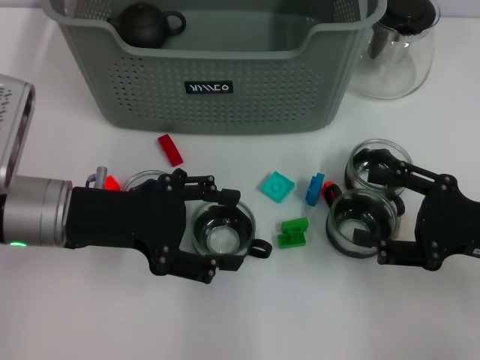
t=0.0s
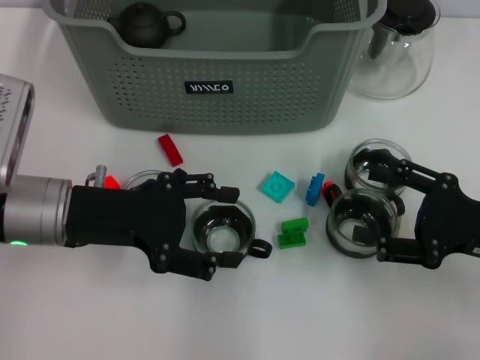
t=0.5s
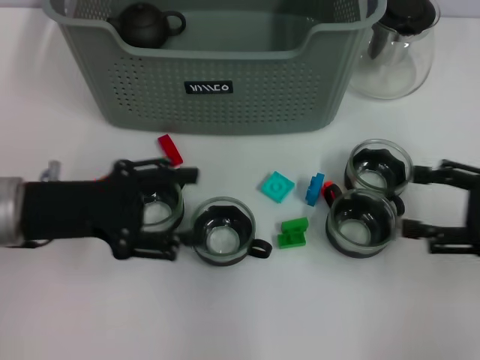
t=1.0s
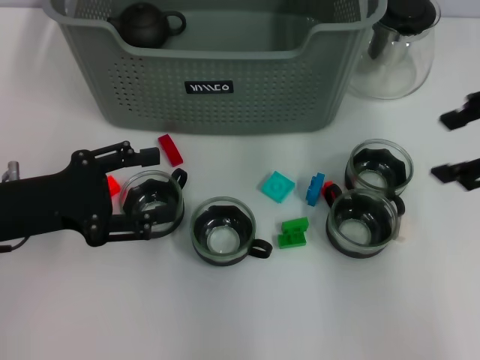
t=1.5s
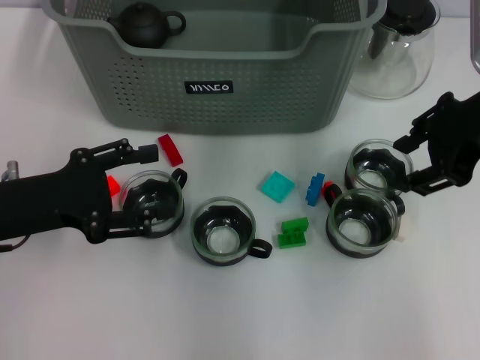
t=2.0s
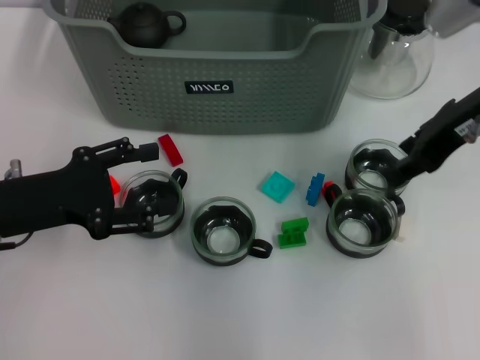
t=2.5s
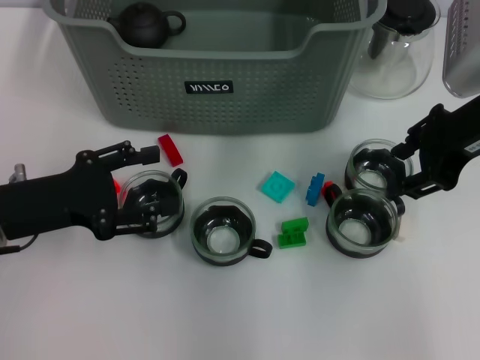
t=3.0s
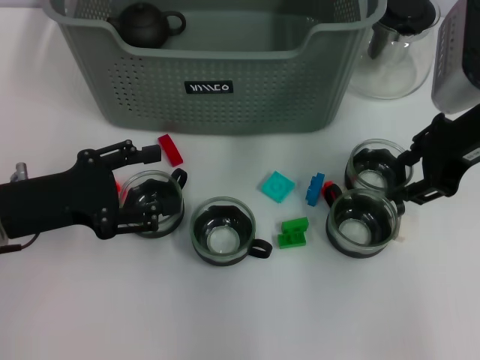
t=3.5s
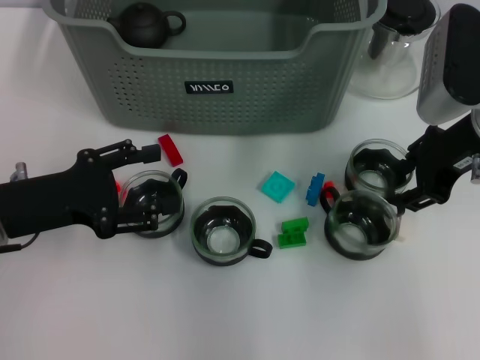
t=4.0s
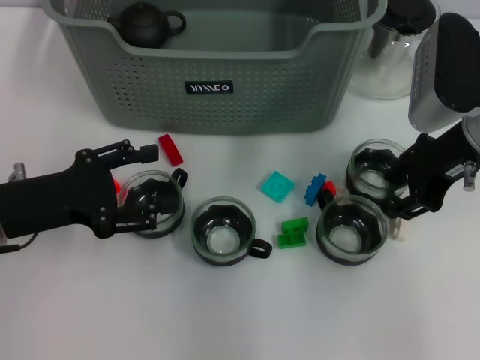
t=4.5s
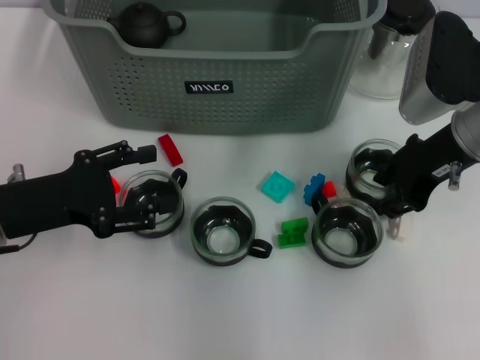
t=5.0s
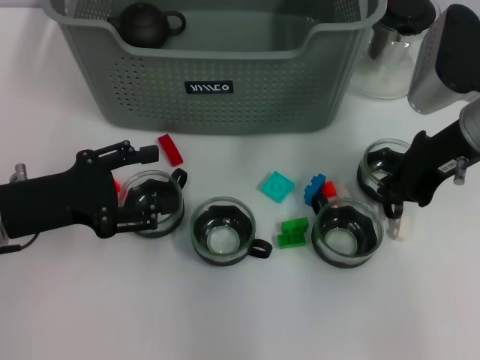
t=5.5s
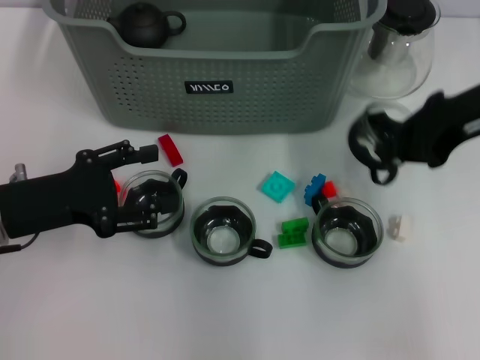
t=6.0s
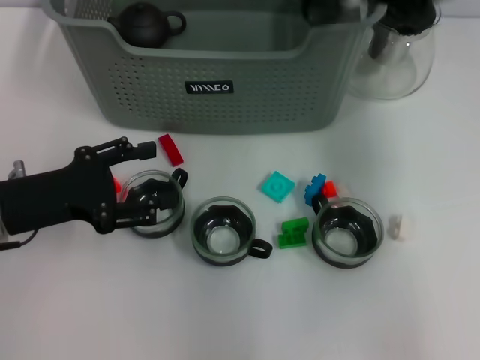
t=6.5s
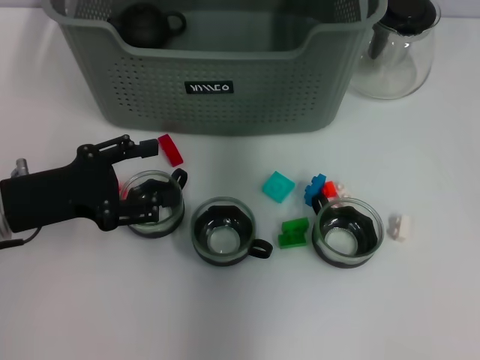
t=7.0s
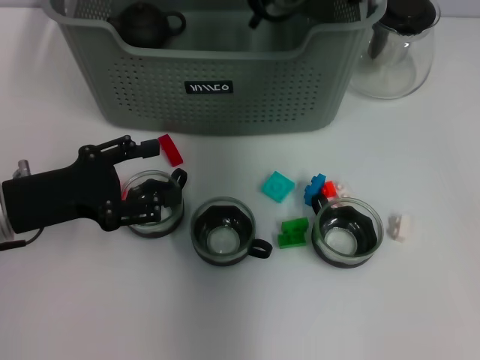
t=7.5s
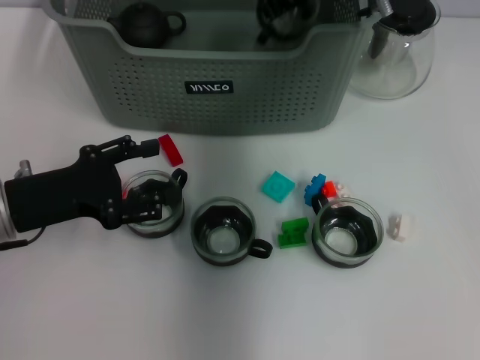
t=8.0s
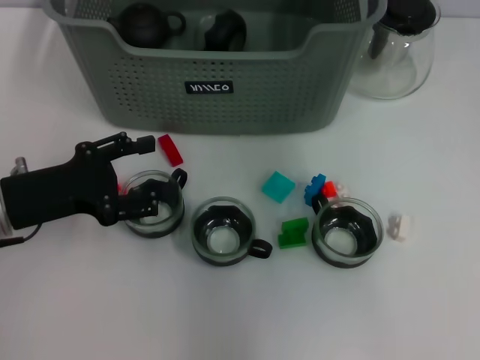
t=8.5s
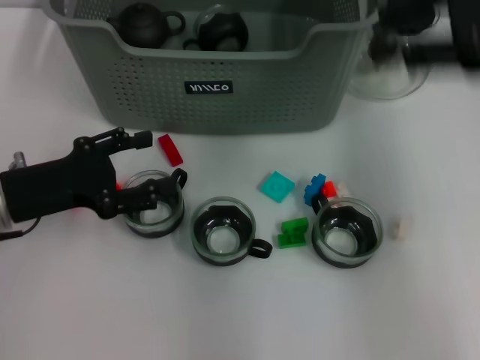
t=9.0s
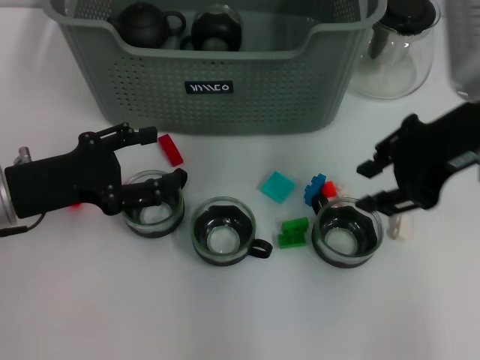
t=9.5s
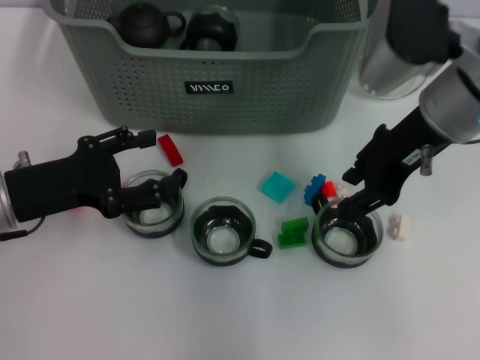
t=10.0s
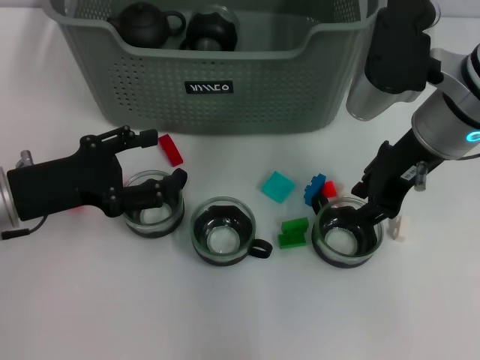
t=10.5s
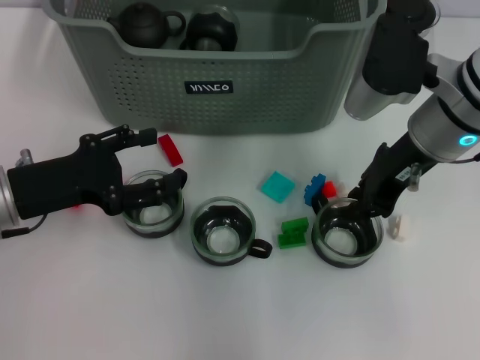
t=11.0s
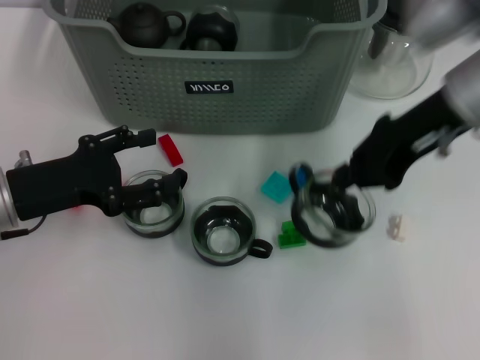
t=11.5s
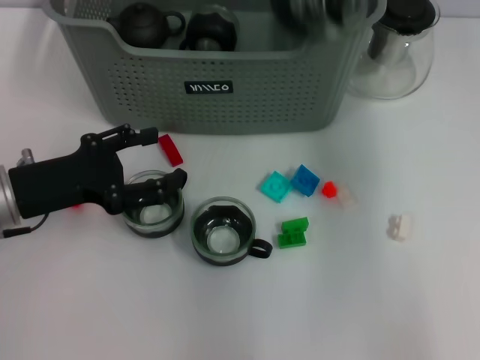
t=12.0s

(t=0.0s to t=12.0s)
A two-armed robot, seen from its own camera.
Task of the whole recording: pick up the teacup on the table and place it into the storage bin, pick up the block on the table and place it into the storage bin.
Step, t=0.0s - t=5.5s: Grasp the cup with right gripper.
Step, t=6.0s - t=8.0s: Place the cup in the storage box with right gripper.
Step, t=8.5s - t=11.0s: Grasp the cup with right gripper.
t=0.0s - t=2.0s: The left gripper is displaced to the left by about 5 cm; the right gripper goes approximately 20 cm upward, forward and to the left.
t=2.0s - t=4.0s: The right gripper goes about 5 cm downward.
t=4.0s - t=6.0s: The right gripper closes up.
t=6.0s - t=8.0s: The right gripper is displaced to the left and forward by some 20 cm.
t=8.0s - t=10.0s: The right gripper moves backward and to the right, about 15 cm, and opens its fingers.
t=10.0s - t=12.0s: The right gripper is displaced upward and to the right by about 10 cm, and closes.

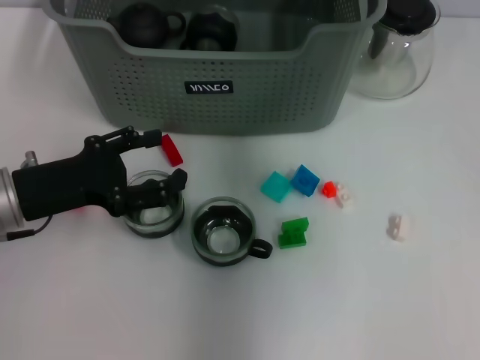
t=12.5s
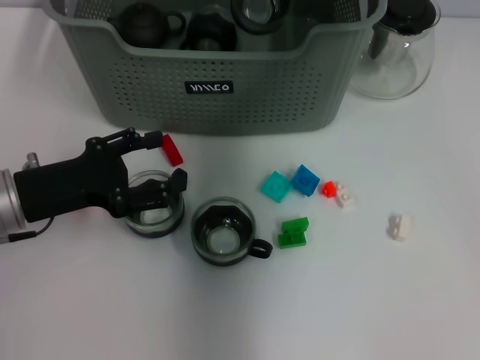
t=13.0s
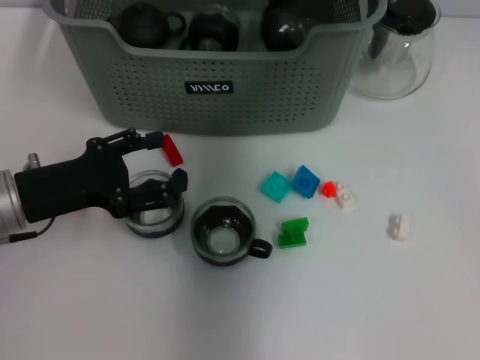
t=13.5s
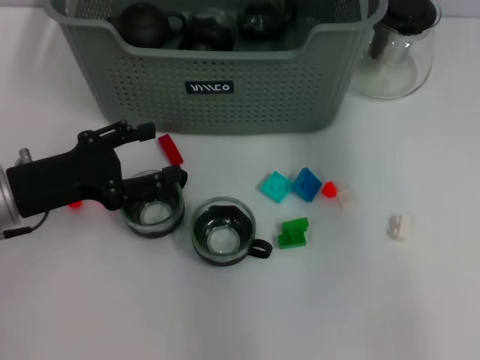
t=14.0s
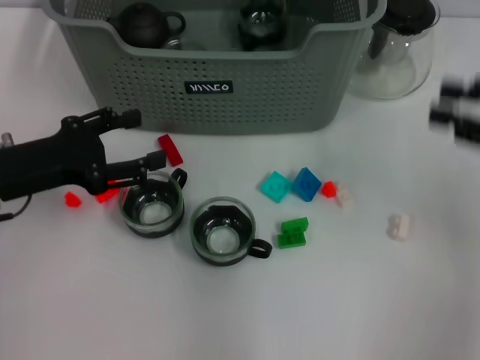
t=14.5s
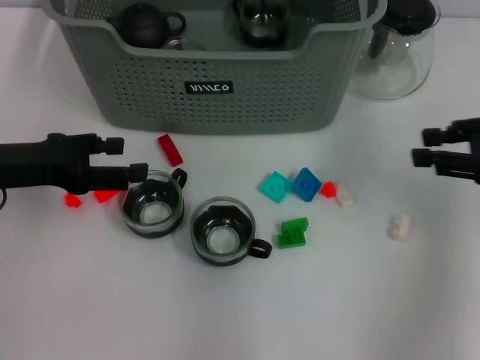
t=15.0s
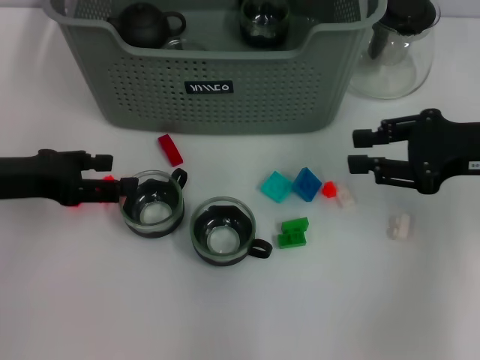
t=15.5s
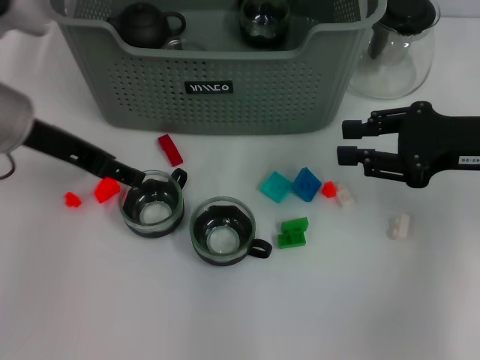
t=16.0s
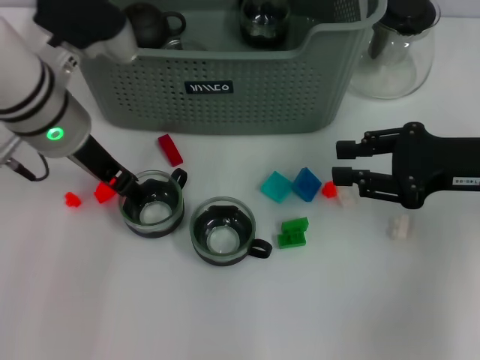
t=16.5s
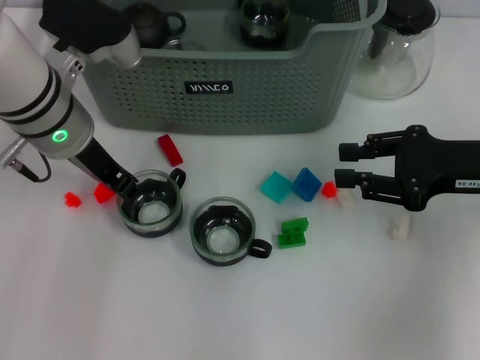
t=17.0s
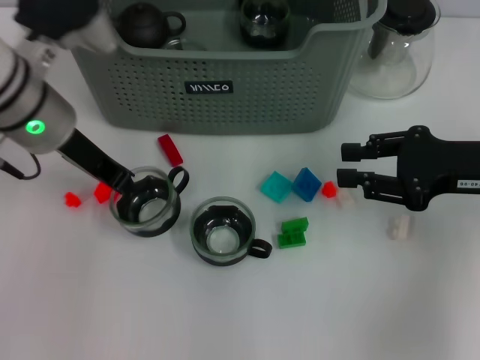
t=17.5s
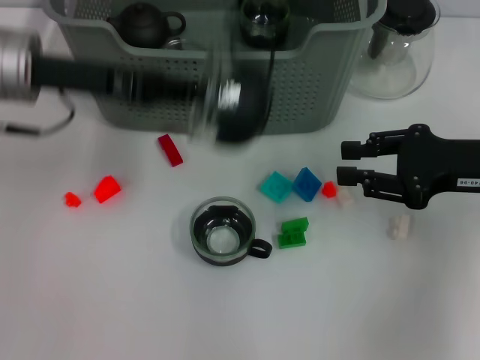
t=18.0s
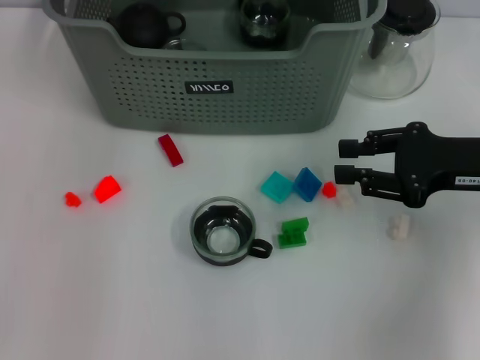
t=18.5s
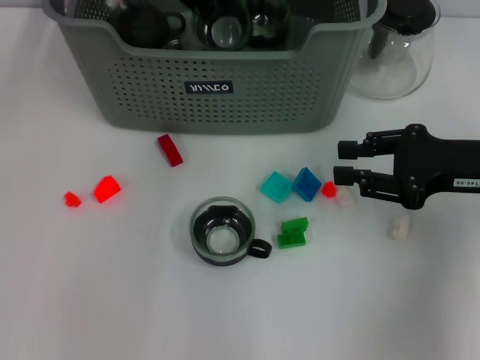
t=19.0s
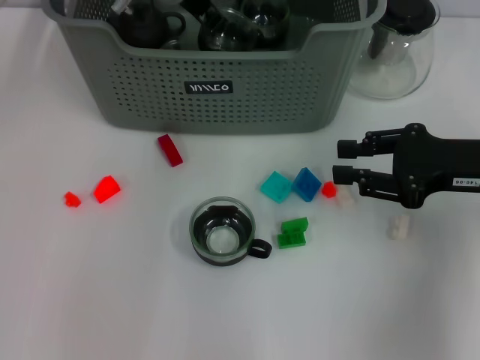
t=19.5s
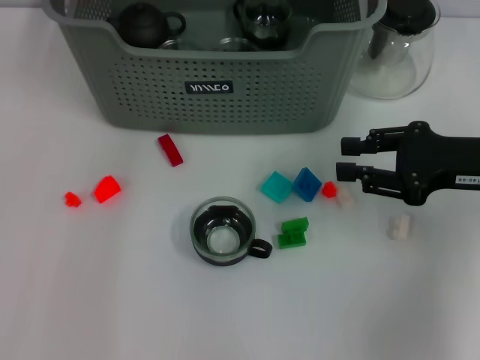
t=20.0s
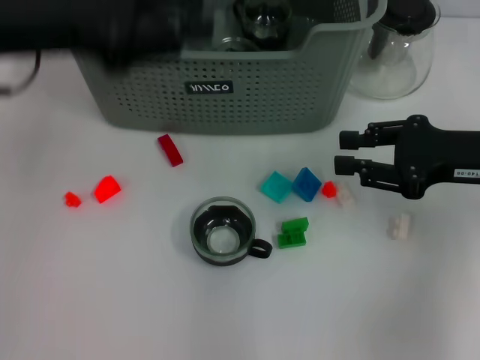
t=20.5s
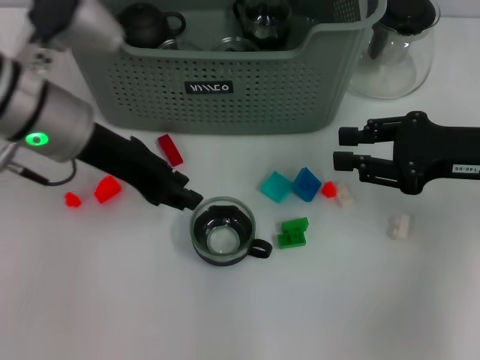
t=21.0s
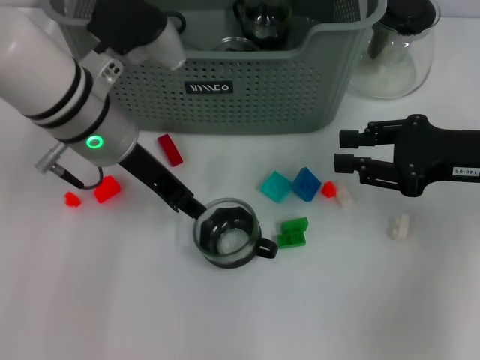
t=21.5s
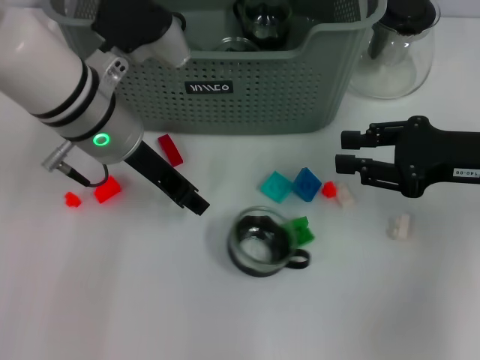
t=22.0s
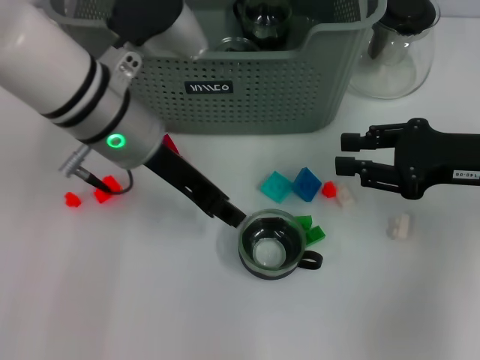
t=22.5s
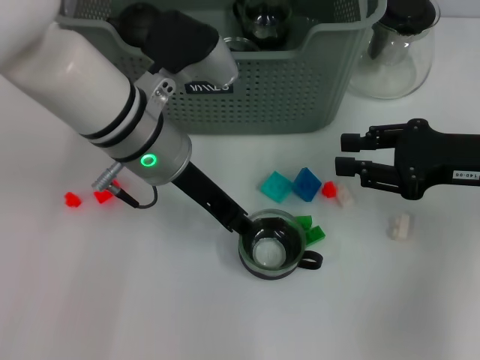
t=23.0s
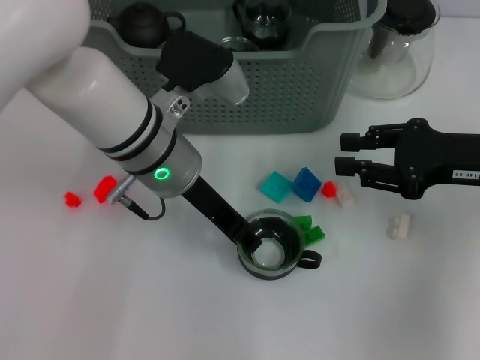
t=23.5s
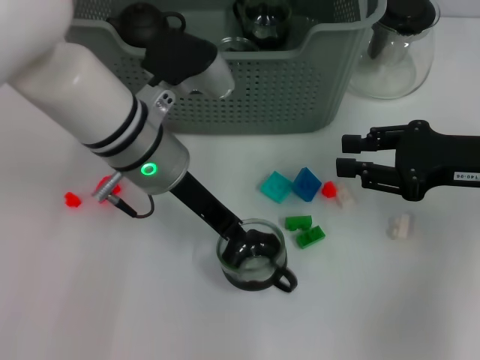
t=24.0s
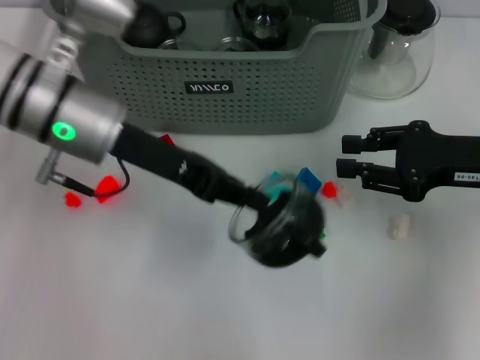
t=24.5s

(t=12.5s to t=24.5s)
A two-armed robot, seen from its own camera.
Task of the whole recording: pick up the teacup on the table and place it into the storage bin, pick up the block on the table and place it into the storage bin.
Step, t=13.5s - t=17.0s: Grasp the cup with left gripper.
Step, t=17.5s - t=19.5s: Place the cup in the storage box with left gripper.
Step, t=20.0s - t=24.0s: Grasp the cup with left gripper.
t=12.5s - t=14.5s: The right gripper shifts some 30 cm to the right and backward, and opens.
t=14.5s - t=16.5s: The right gripper shifts approximately 5 cm to the left. The left gripper is displaced to the right, forward and upward by some 15 cm.
t=16.5s - t=18.5s: The left gripper goes about 15 cm forward and upward, and closes.
t=18.5s - t=20.5s: The left gripper is displaced backward and to the left by roughly 15 cm, and opens its fingers.
t=20.5s - t=22.5s: The left gripper shifts approximately 15 cm to the right and downward.

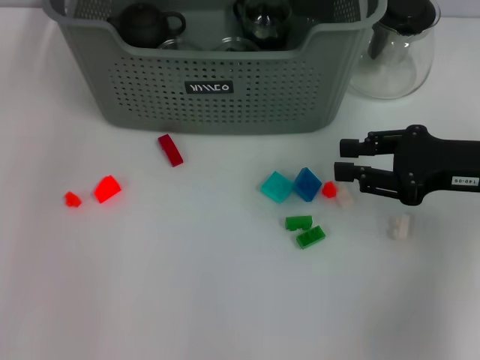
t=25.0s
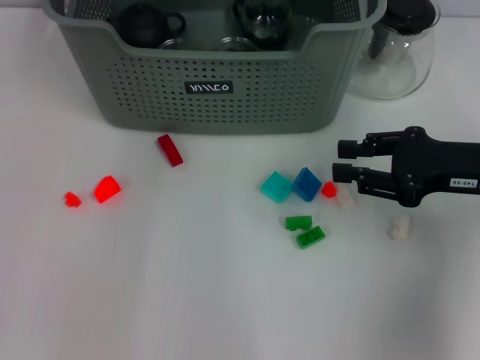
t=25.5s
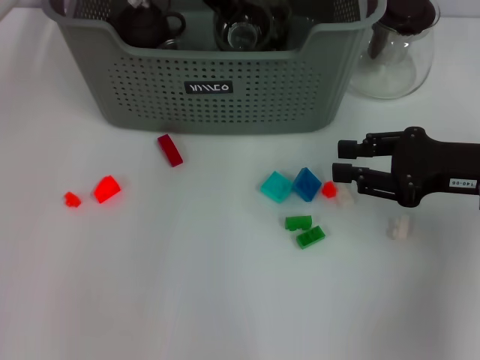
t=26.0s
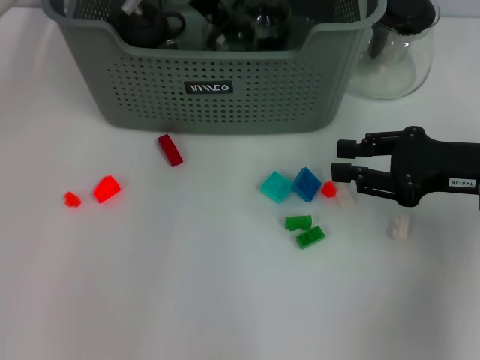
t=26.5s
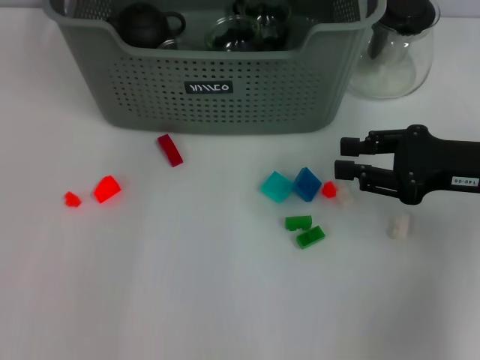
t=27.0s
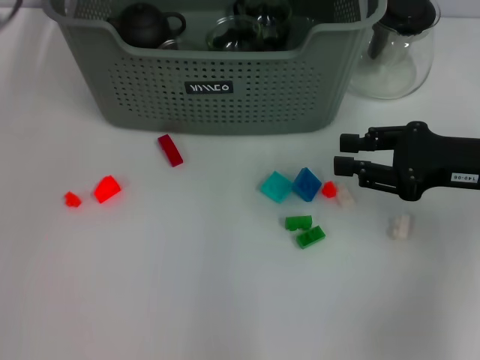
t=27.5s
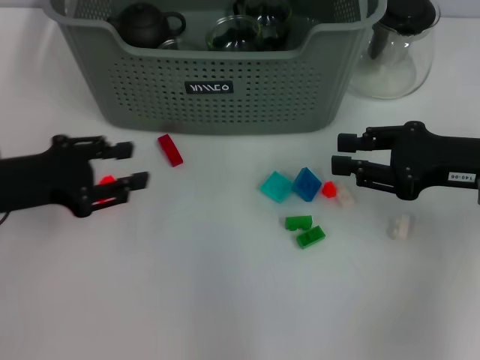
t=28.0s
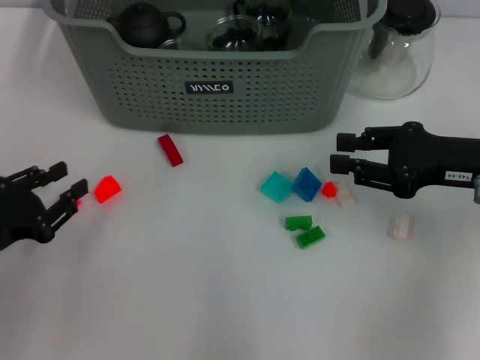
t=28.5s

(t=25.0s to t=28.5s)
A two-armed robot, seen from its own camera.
Task of the whole recording: pick up the teacup on the table and place it into the storage bin, pick up the block on the table and place it into the storage bin.
Step, t=25.0s - t=26.5s: Place the cup in the storage box with left gripper.
t=27.0s - t=28.5s: The left gripper travels backward, downward and to the left by about 40 cm.
